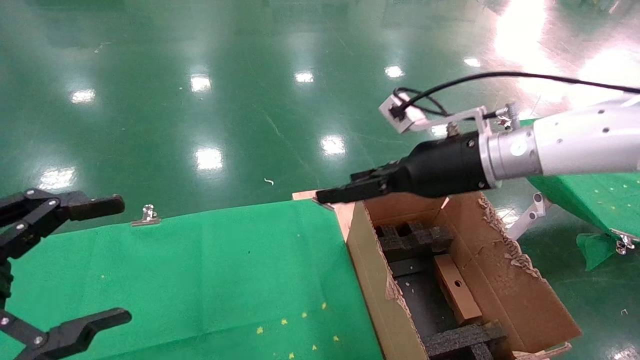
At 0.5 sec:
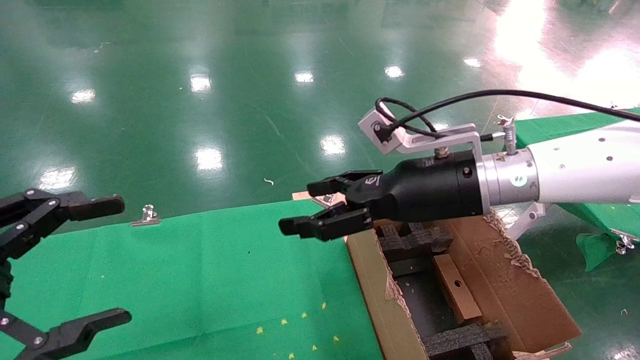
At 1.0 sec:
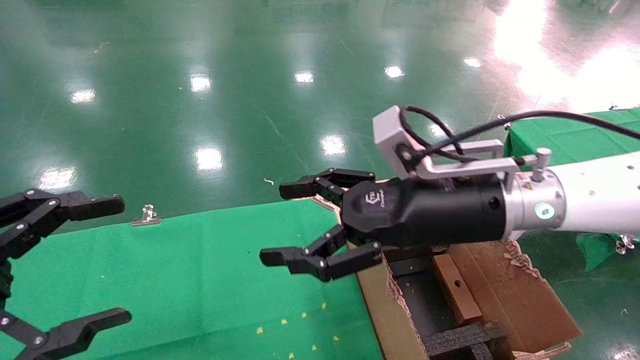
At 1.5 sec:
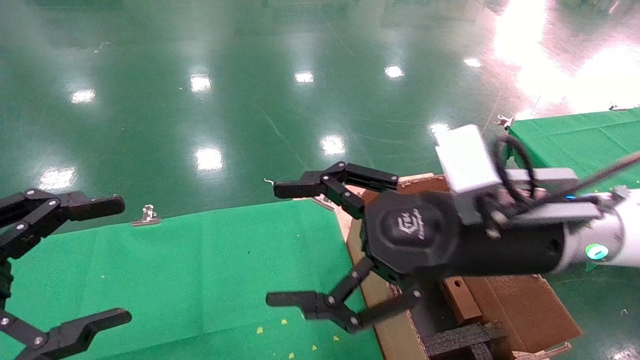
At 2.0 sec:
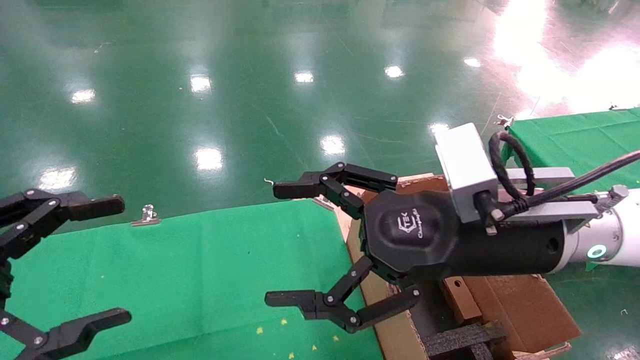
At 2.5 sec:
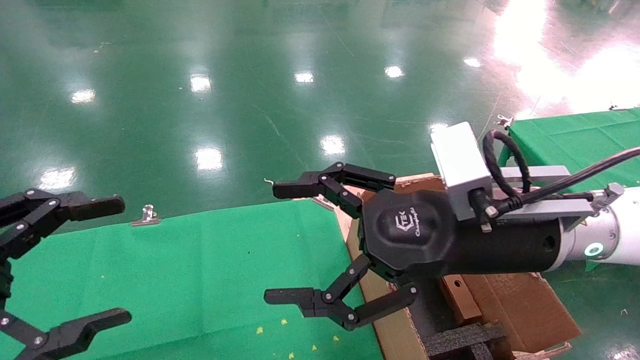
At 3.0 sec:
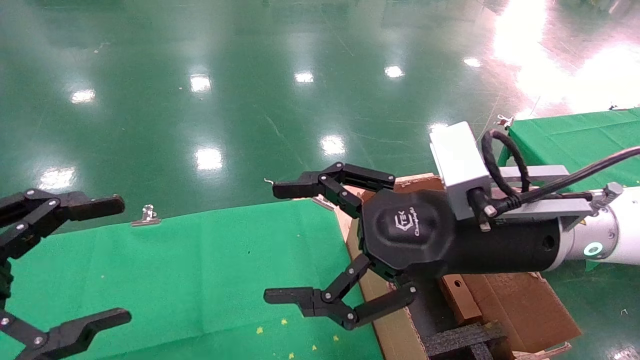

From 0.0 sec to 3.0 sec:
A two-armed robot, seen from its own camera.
Task of the whole recording: using a robotic arm to pick up a cardboard box and palace it the carton.
From 0.0 sec to 1.5 sec: The right gripper shifts some 10 cm backward.
From 1.5 sec to 3.0 sec: Both grippers stay about where they are.
